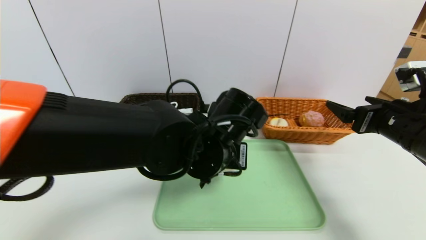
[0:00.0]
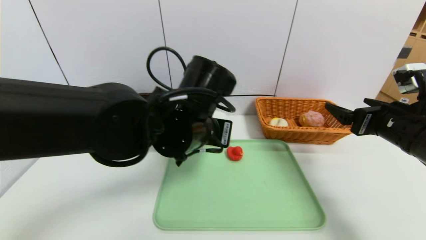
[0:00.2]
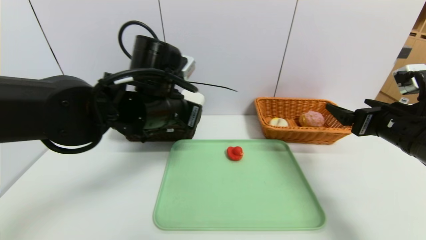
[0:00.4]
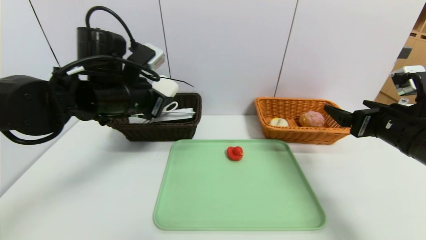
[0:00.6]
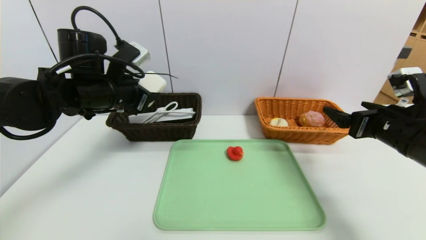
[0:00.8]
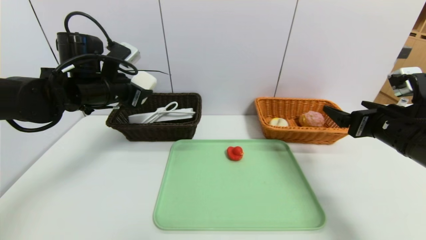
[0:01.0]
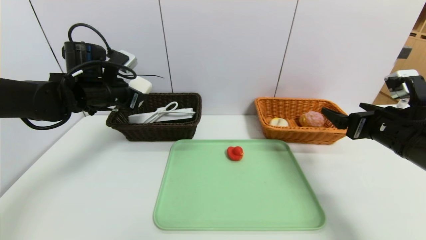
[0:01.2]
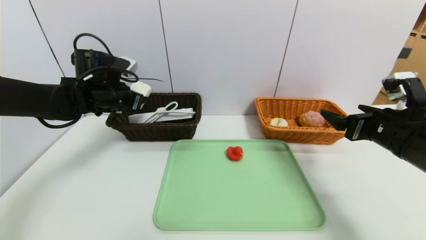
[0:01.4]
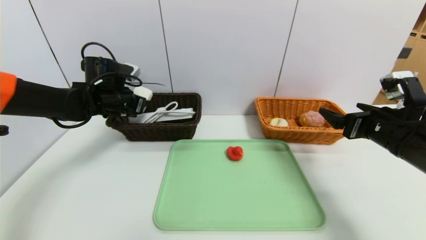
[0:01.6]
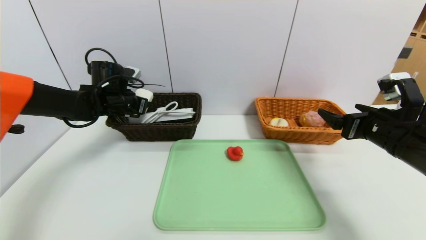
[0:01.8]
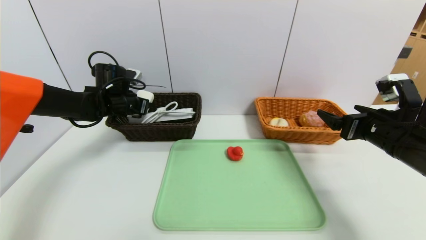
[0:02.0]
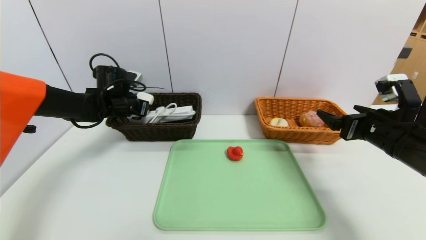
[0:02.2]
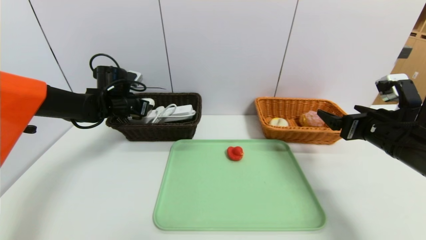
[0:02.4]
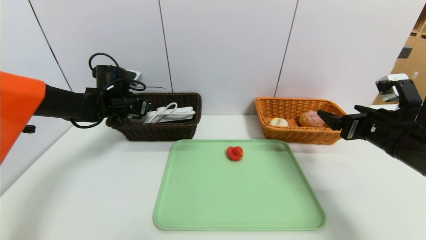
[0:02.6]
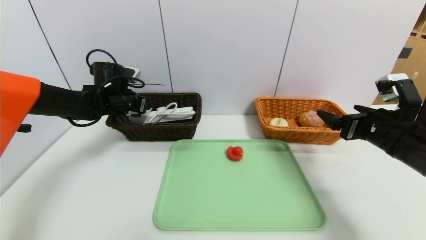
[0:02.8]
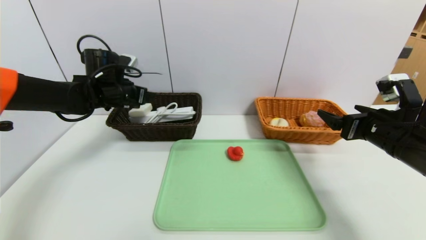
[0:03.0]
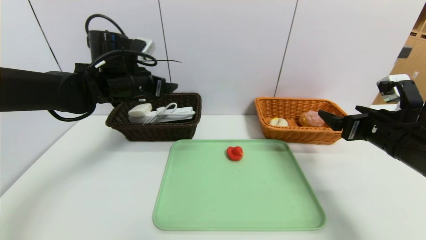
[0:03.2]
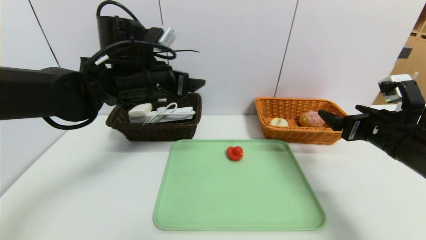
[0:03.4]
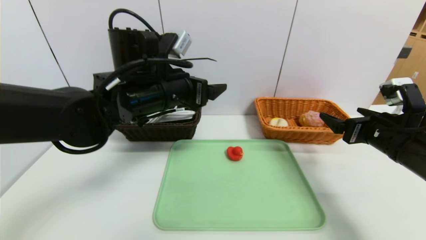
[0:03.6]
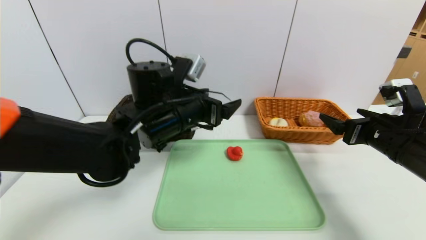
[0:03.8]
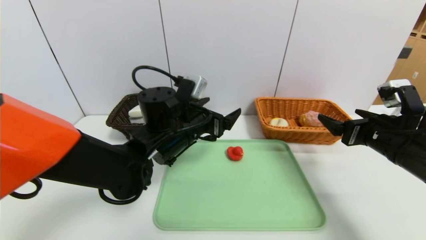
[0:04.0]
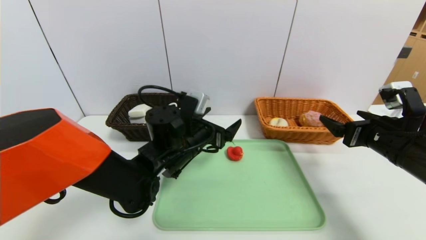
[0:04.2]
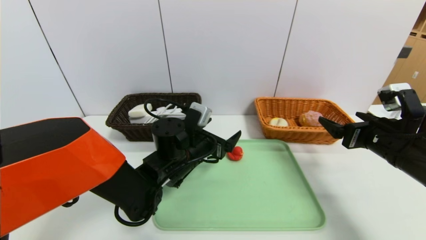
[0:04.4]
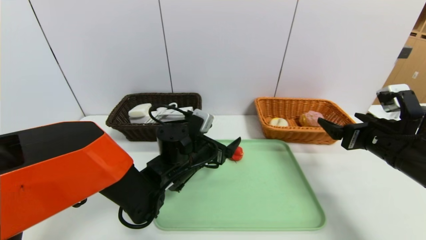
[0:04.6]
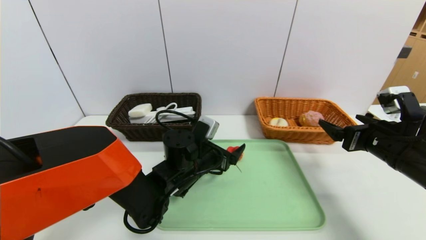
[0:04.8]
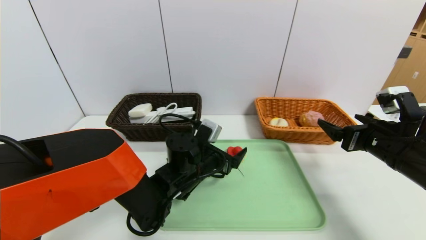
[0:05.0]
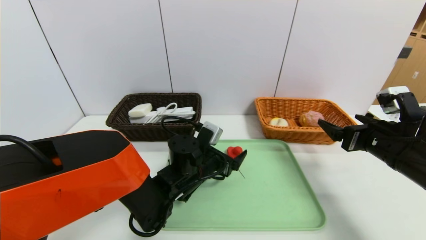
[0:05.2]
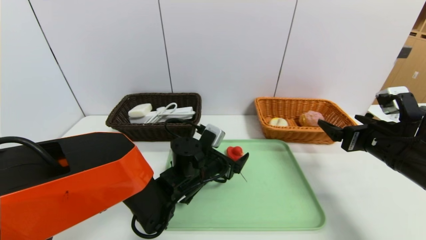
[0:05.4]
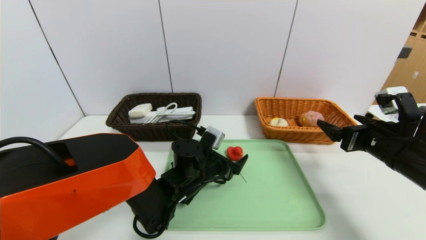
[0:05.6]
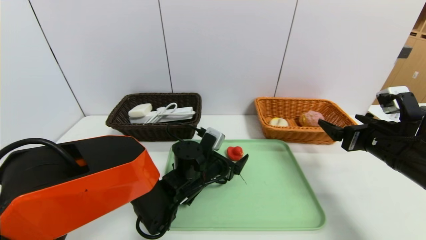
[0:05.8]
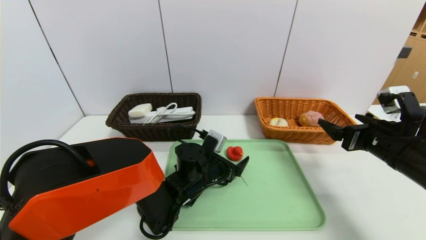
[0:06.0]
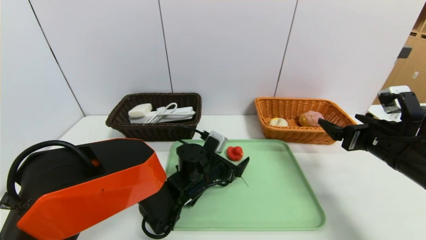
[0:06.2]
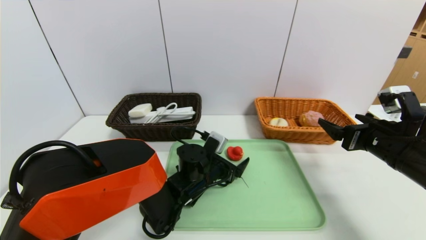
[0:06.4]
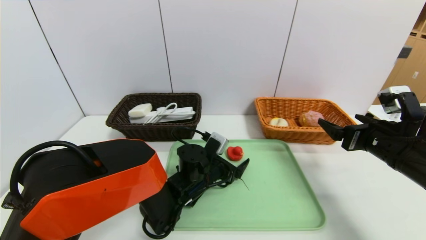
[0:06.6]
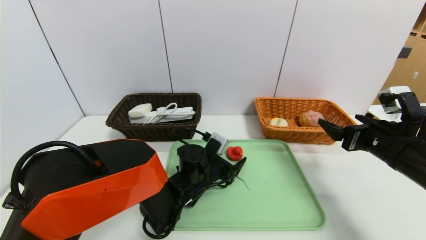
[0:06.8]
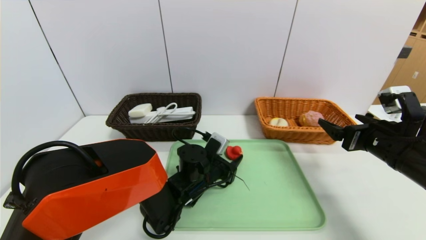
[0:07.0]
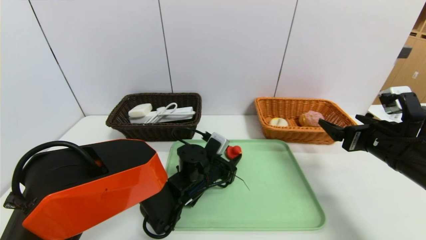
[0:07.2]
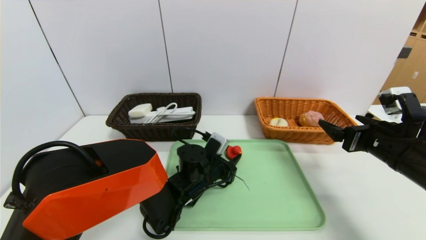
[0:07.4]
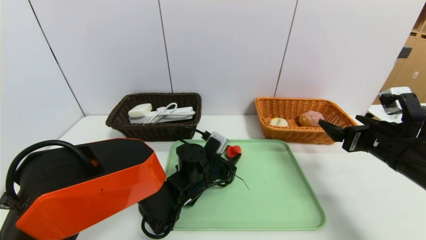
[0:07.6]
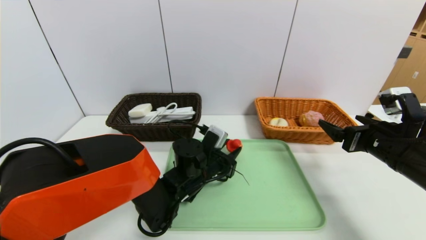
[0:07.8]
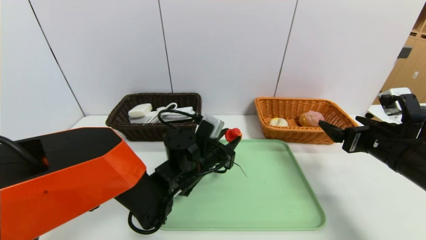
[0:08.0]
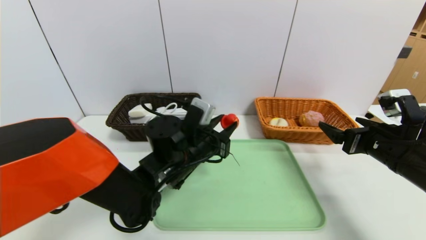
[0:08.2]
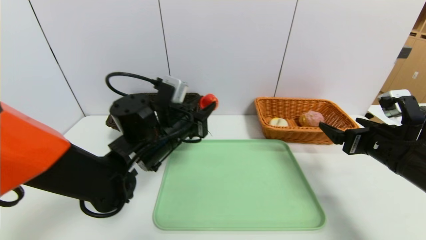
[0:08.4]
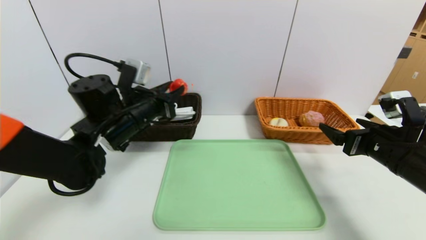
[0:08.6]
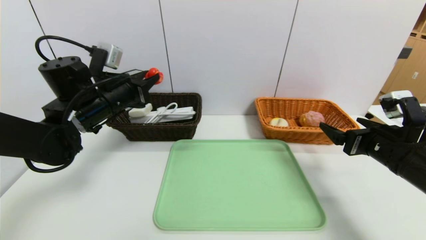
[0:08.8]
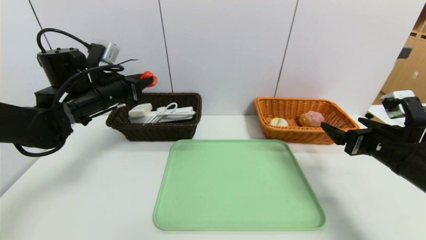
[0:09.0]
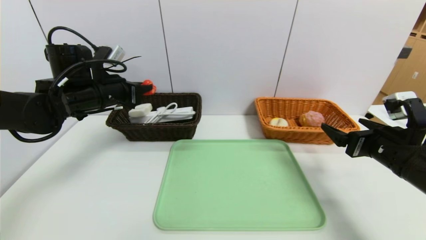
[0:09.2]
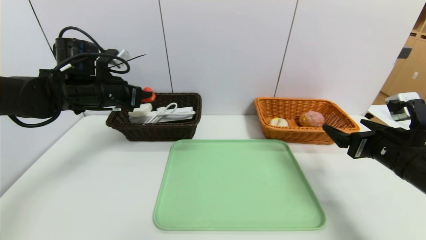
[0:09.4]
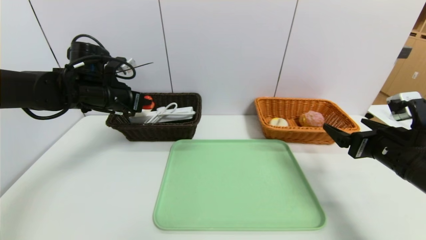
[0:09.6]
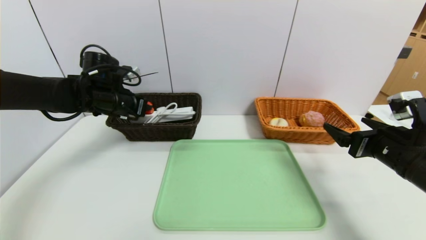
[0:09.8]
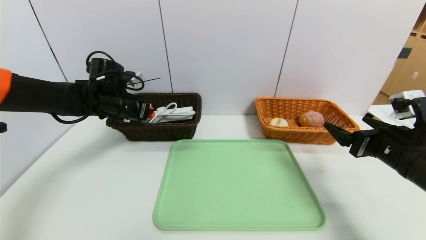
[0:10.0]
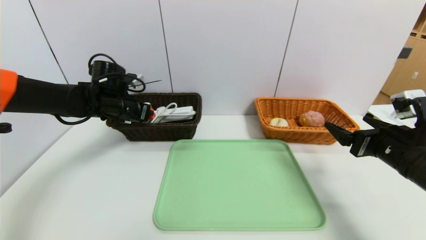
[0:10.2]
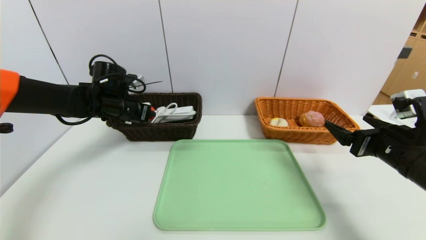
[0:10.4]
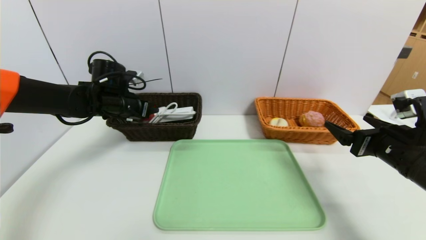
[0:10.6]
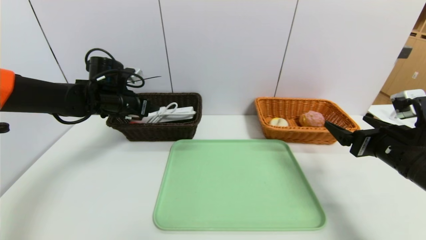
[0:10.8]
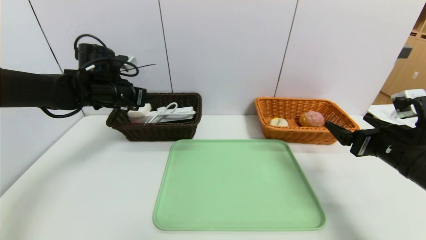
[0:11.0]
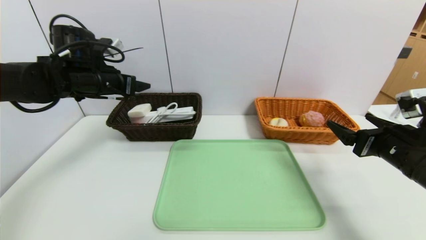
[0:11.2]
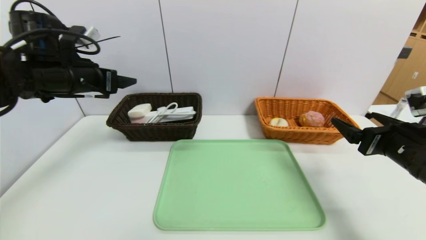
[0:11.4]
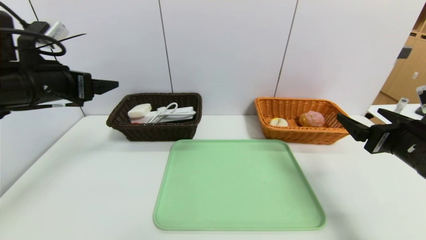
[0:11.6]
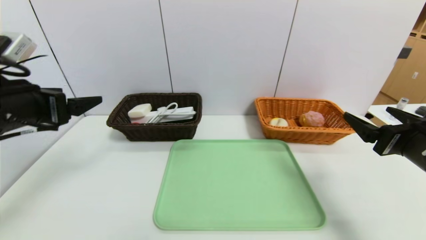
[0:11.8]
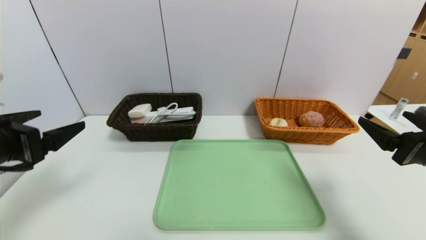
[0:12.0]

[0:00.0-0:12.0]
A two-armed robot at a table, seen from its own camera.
Task of the whole recording: place the food in the right basket with the right gripper, and place the non food items in the left basket with the left gripper.
Step, 0:00.0 to 0:03.0: Grasp the soap and put it in the left basket.
Step, 0:03.2 to 0:11.0: Grasp the red duck and put it in the left basket.
0:00.0 to 0:01.6: The left gripper moves to the left and forward, some 30 cm.
0:01.6 to 0:03.0: The left gripper opens its fingers.
0:03.0 to 0:04.4: The left gripper travels to the right, backward and downward by roughly 25 cm.
0:04.4 to 0:06.0: The left gripper heads downward, covering approximately 5 cm.
0:06.0 to 0:07.6: The left gripper closes its fingers.
0:07.6 to 0:09.0: The left gripper moves to the left and upward, approximately 30 cm.
0:09.0 to 0:10.4: The left gripper shifts some 5 cm forward.
0:10.4 to 0:12.0: The left gripper heads backward, covering roughly 25 cm, and opens its fingers. Meanwhile the right gripper moves backward, roughly 5 cm.

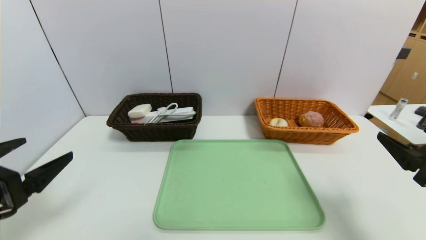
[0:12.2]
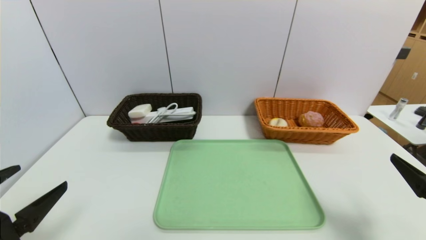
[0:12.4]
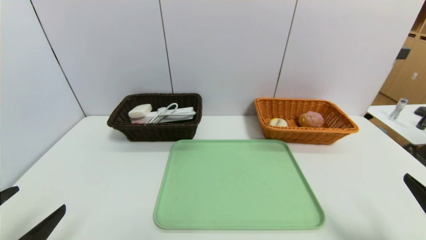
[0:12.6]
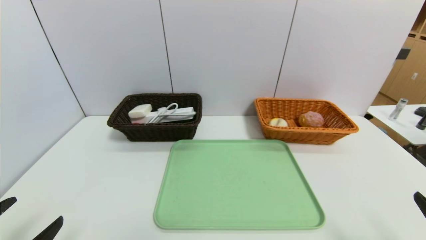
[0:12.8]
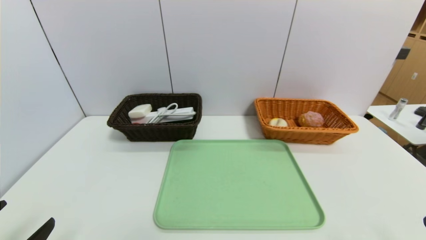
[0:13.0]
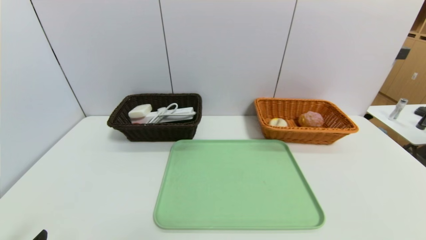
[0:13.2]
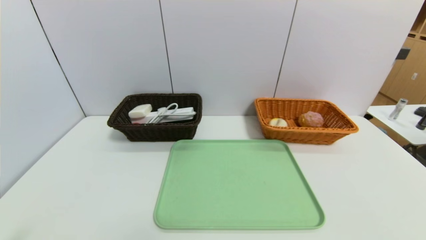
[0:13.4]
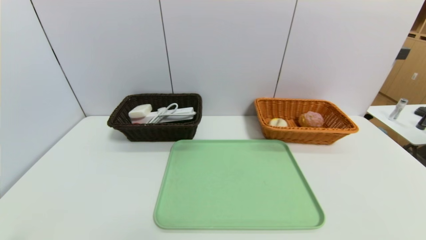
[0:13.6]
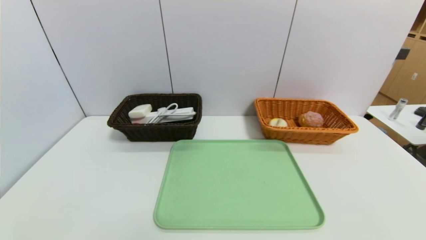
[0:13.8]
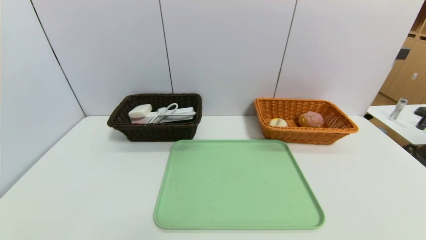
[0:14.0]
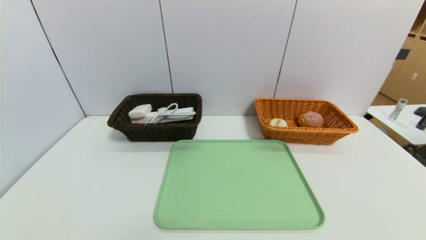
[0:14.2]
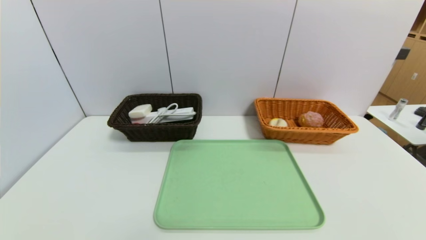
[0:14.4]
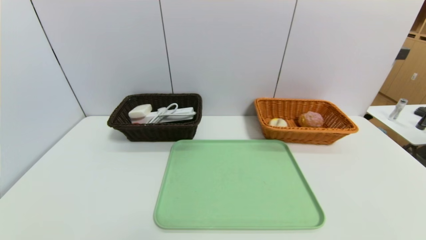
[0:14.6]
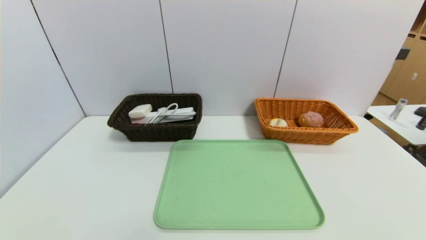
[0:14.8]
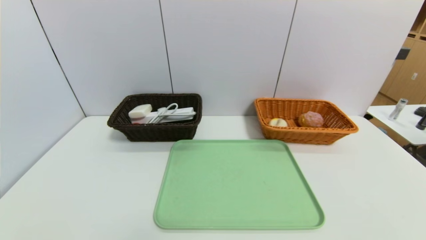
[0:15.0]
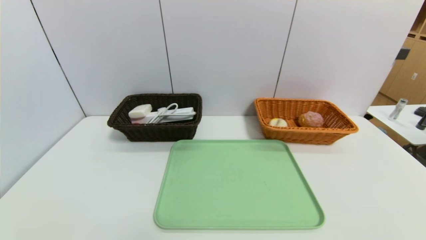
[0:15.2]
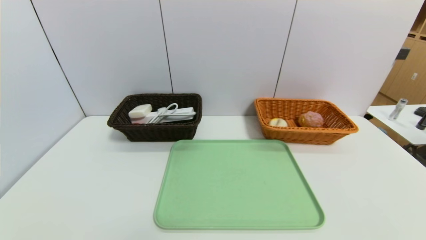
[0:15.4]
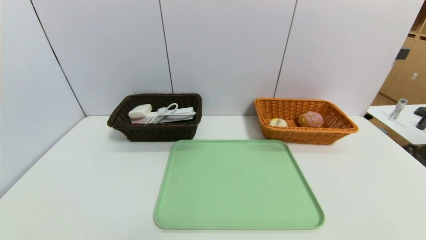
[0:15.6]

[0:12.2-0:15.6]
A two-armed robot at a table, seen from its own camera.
Task of the whole recording: place the food in the right basket with the right gripper, and place the non food items in the left basket with the left gripper.
0:12.2 to 0:13.8: Both grippers travel together backward and downward, about 15 cm.
